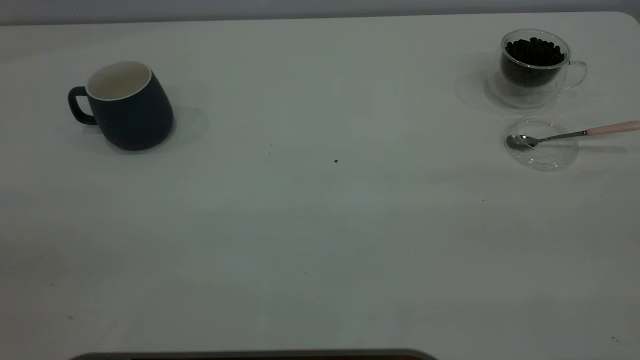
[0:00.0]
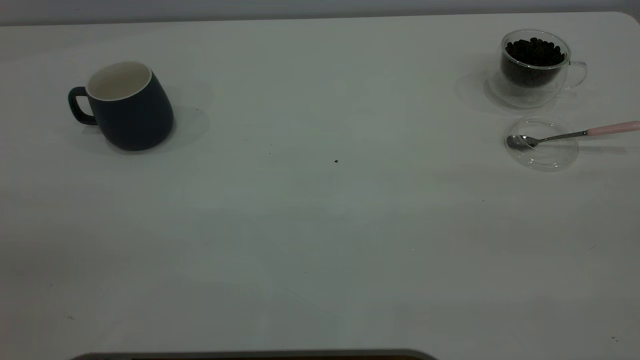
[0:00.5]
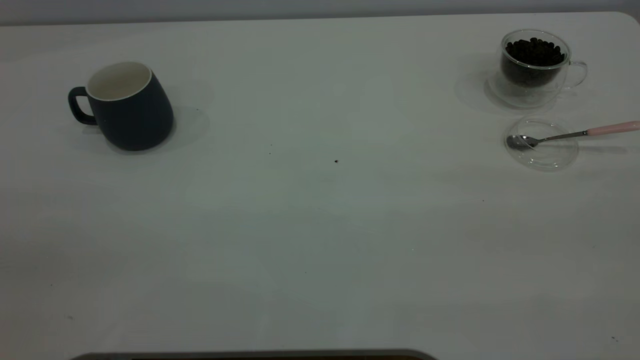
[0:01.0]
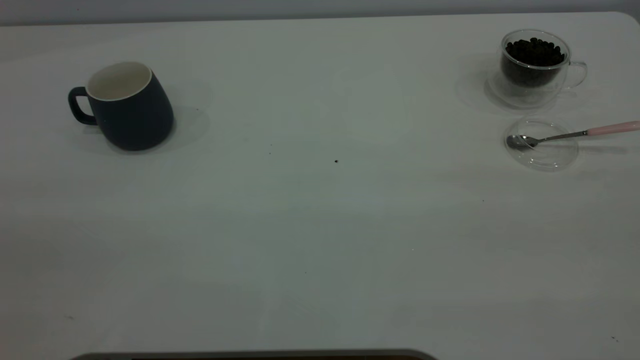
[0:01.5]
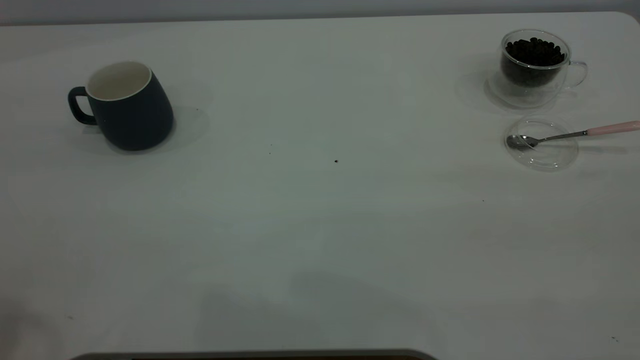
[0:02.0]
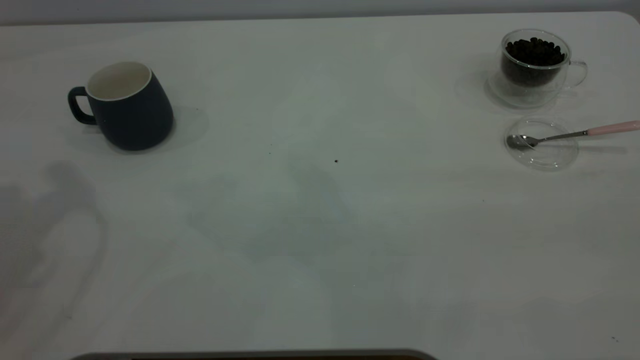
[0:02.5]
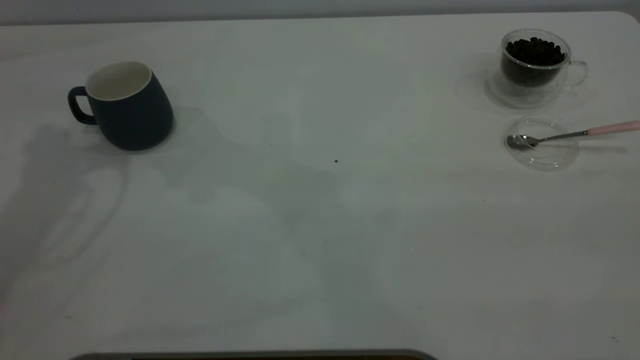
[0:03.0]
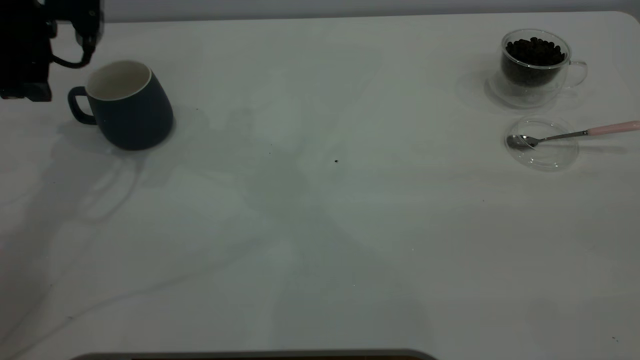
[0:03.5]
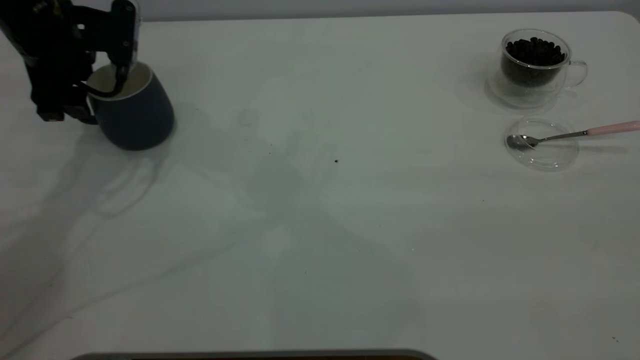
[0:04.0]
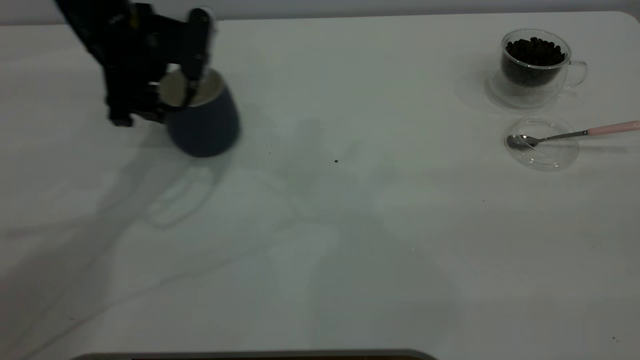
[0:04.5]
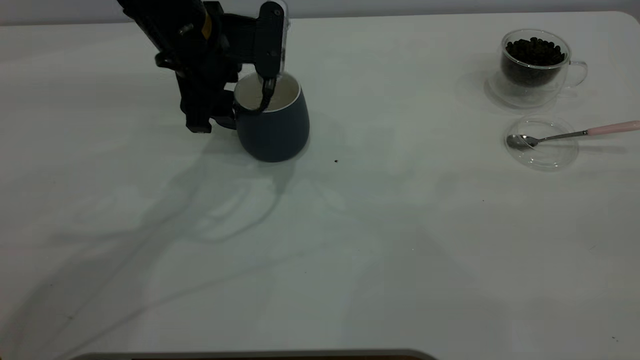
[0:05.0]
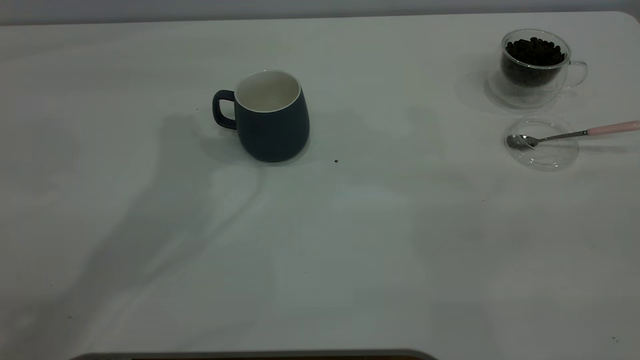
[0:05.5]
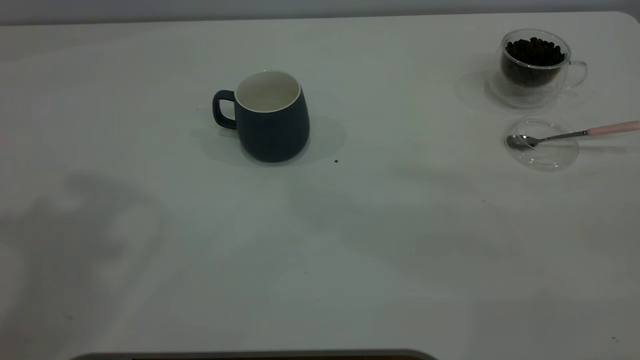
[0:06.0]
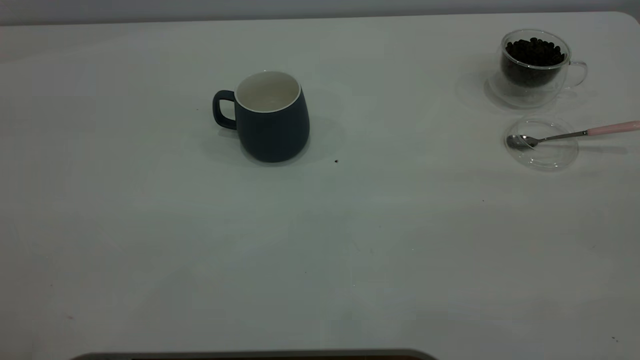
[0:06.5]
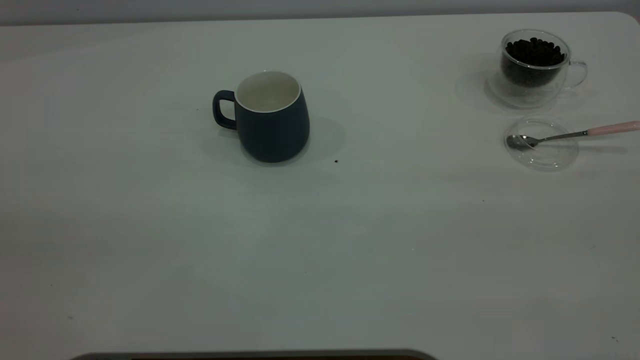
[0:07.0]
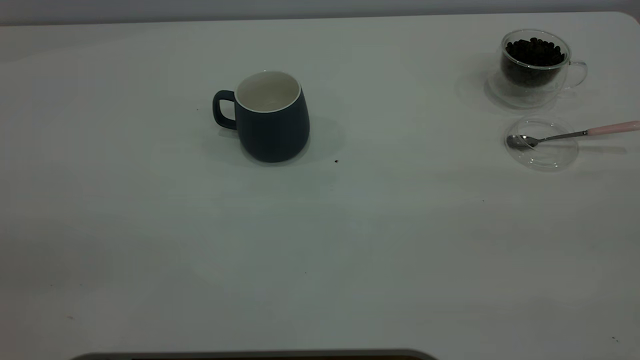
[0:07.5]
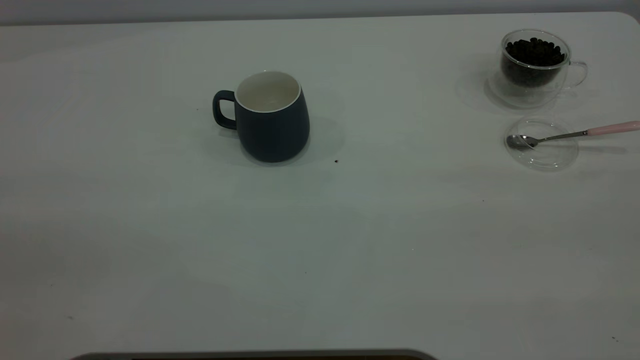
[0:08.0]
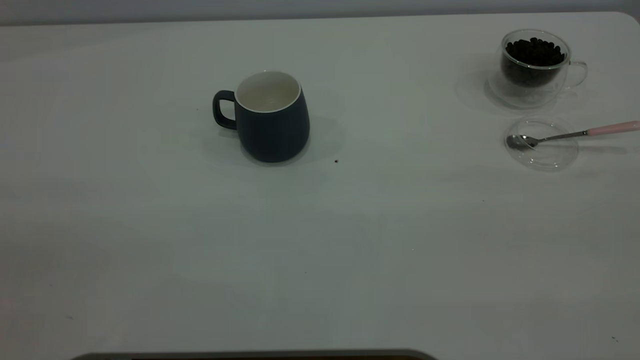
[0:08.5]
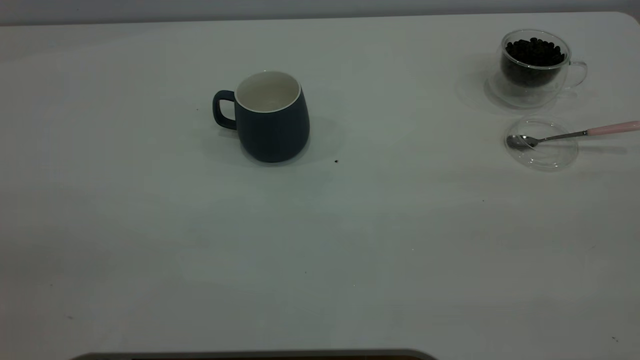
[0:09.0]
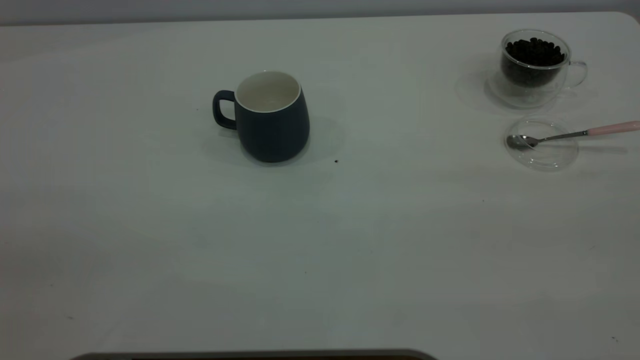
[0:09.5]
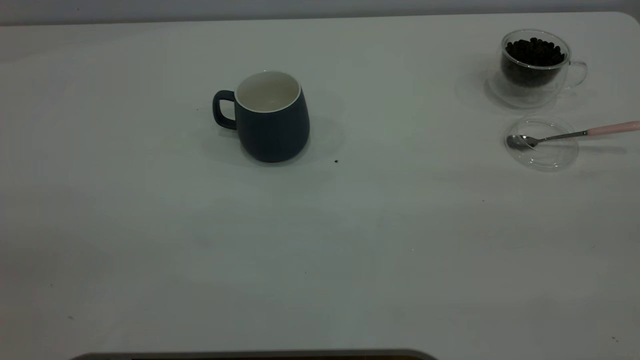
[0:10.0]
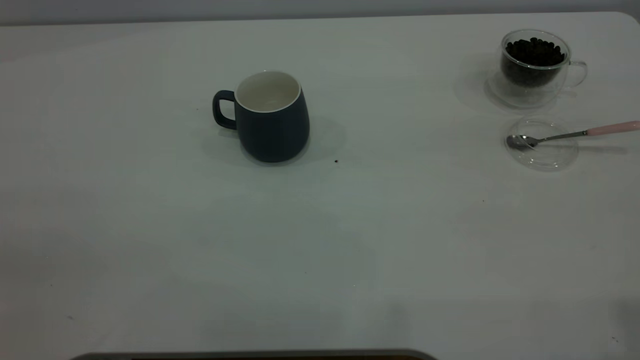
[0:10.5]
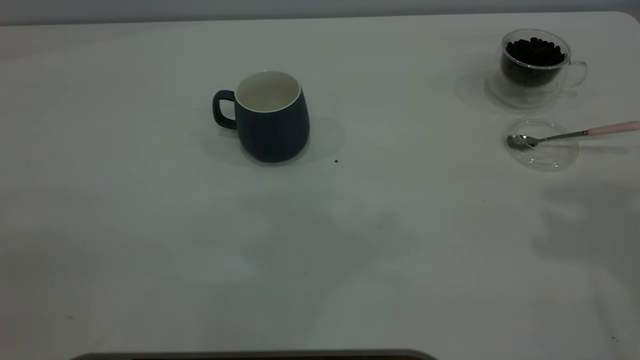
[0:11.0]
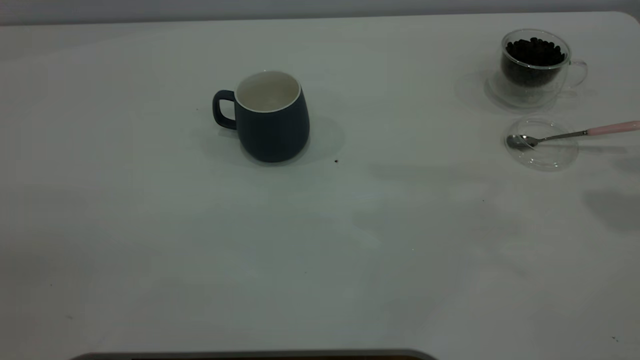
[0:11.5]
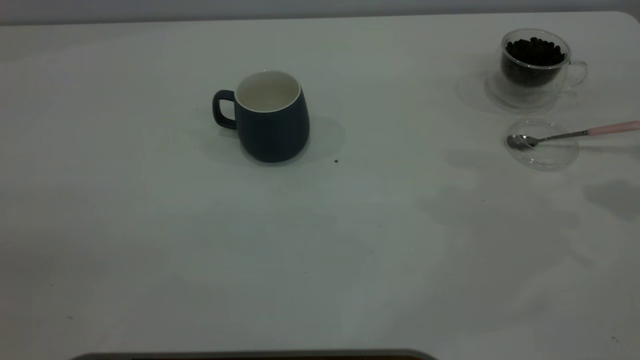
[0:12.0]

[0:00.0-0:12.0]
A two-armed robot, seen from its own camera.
Task of the whole recording: the left gripper place the grey cup in the center of the table, the right gripper take the pink spoon from the cup lid and scoop out the coffee beans from the coffee cup and put them into the grey cup, the right gripper put the spoon back into the cup lid.
Step, 0:00.0 to 0:05.0: Move the cup to the center of view.
0:02.0 to 0:04.0: The left gripper shifts roughly 40 cm forward and downward.
0:04.0 to 0:06.0: The left gripper heads upward and backward, covering roughly 35 cm.

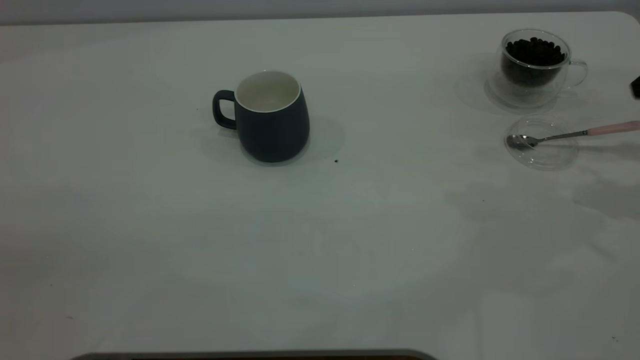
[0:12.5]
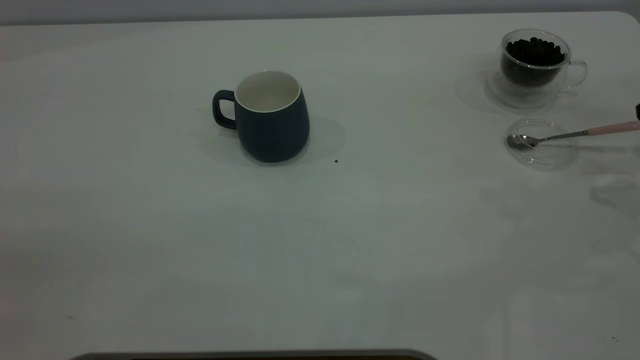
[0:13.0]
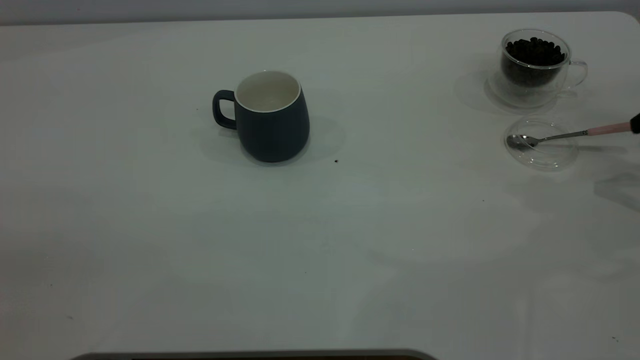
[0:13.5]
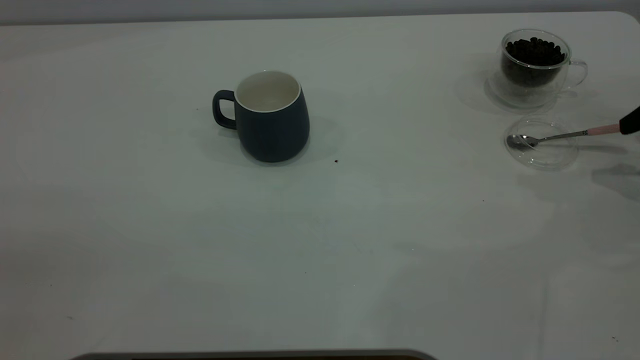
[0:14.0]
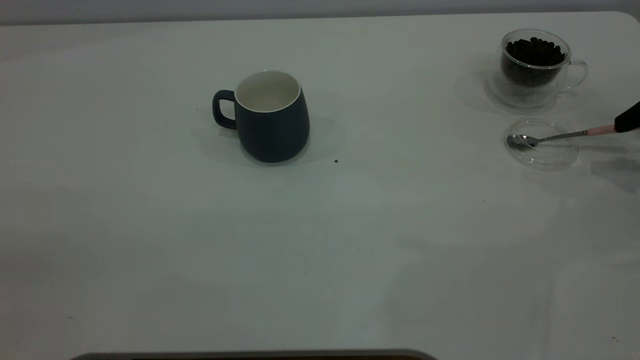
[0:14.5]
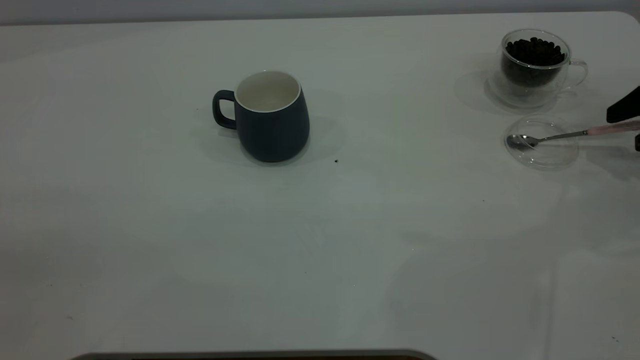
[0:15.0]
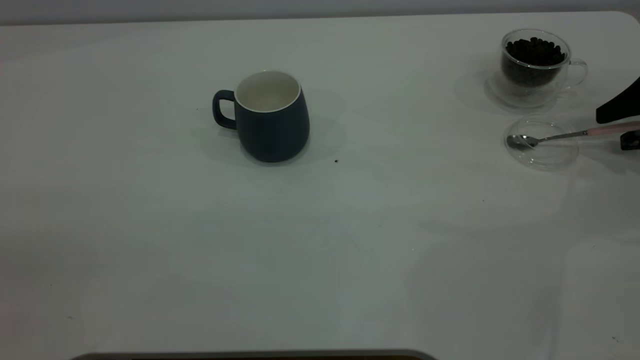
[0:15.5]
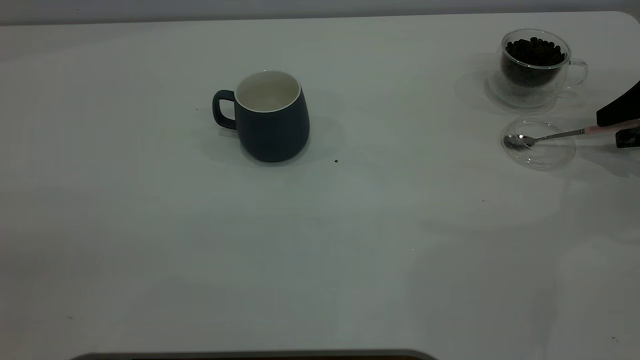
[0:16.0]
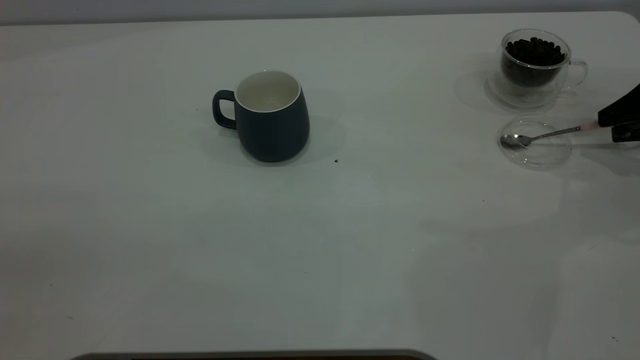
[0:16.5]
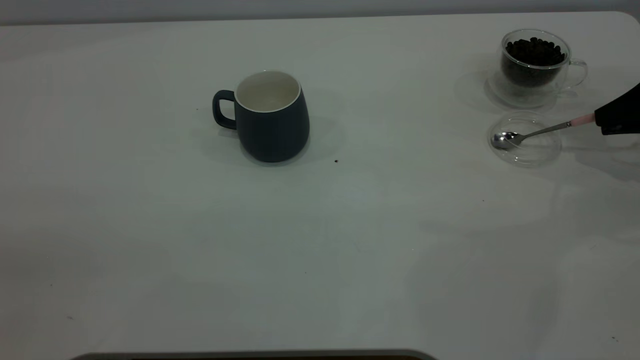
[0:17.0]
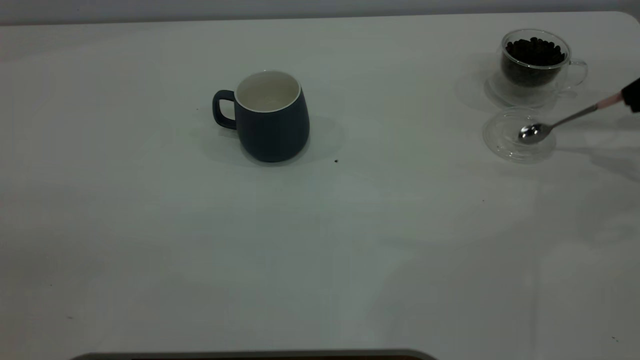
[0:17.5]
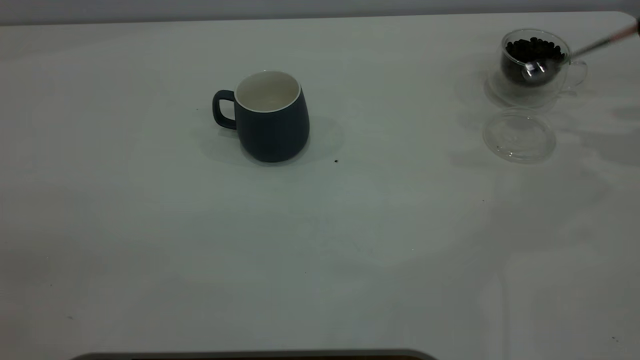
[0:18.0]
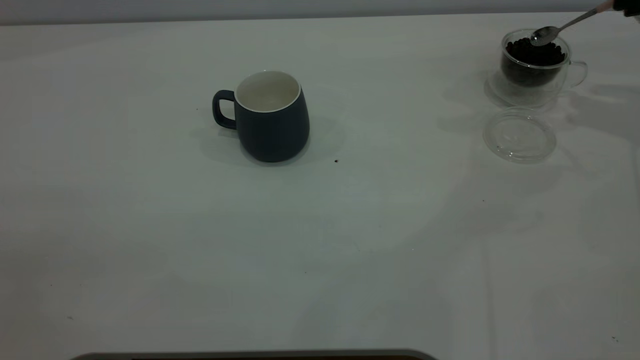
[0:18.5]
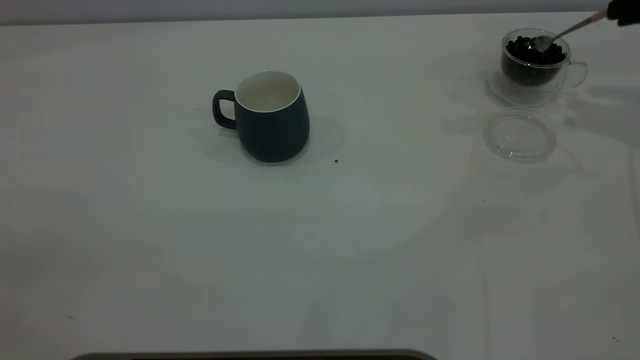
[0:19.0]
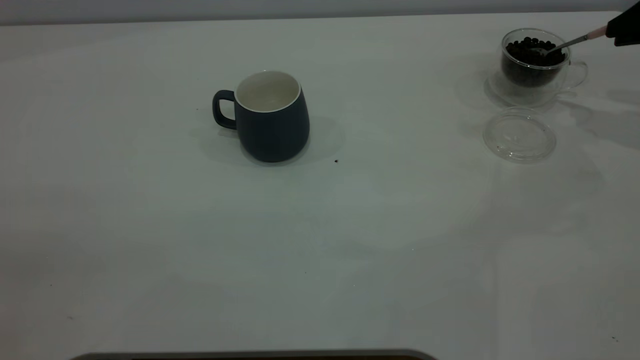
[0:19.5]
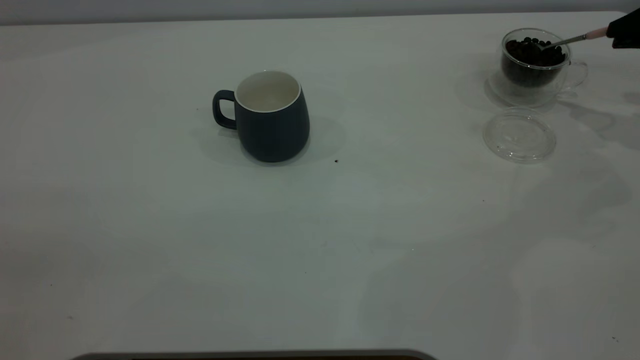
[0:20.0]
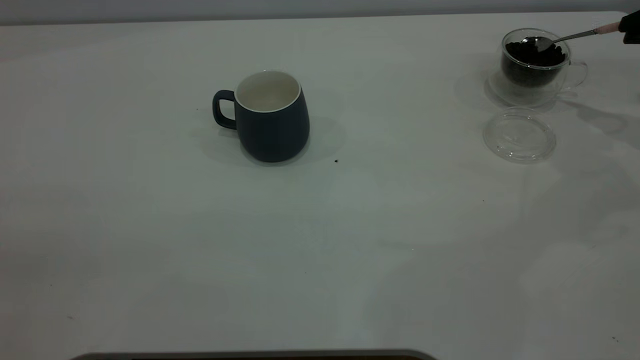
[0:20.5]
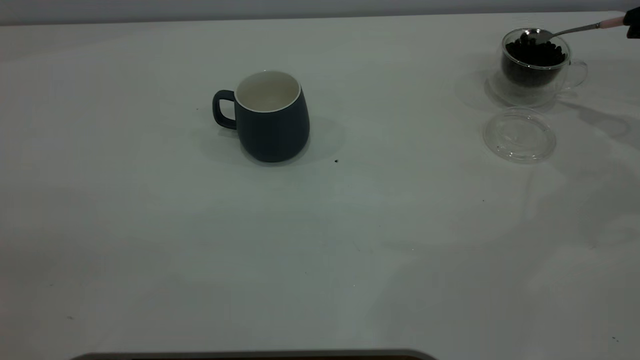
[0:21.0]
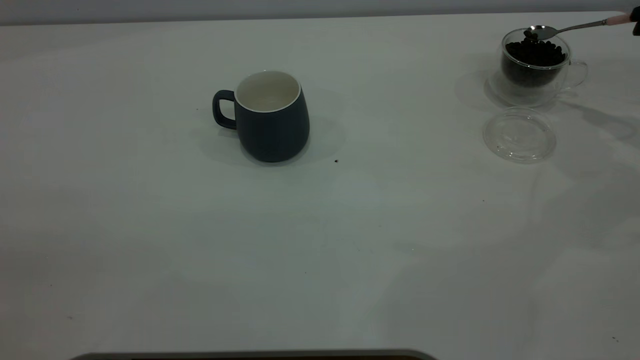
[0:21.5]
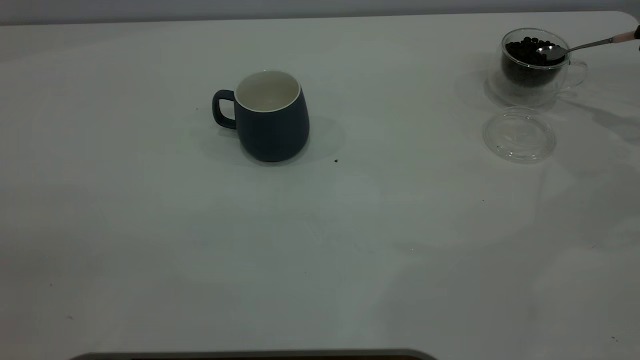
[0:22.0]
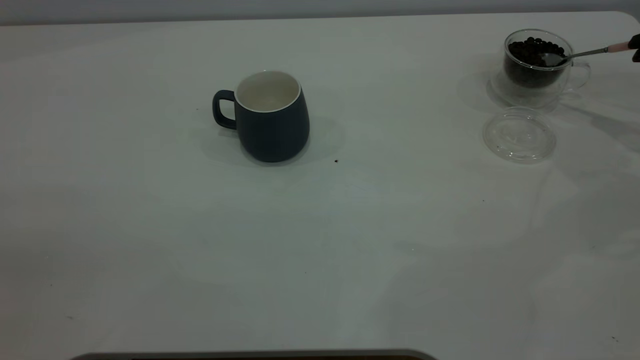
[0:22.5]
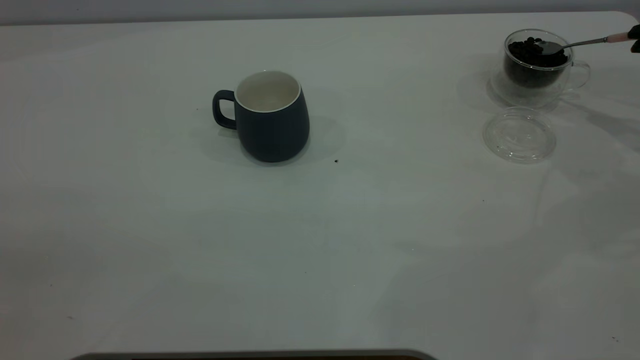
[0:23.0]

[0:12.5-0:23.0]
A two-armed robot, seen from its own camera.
Task of the whole recording: the left gripper place the grey cup in the center of the table, the right gripper take the pink spoon from the cup lid and scoop out the coffee beans from the coffee cup and put them into the grey cup, the right gripper put the spoon back into the cup lid.
Step, 0:12.5 to 0:17.5: Pick up the spoon.
0:12.5 to 0:14.5: The right gripper shifts approximately 10 cm downward.
0:14.5 to 0:16.5: The right gripper closes its fingers.
0:16.5 to 0:19.0: The right gripper shifts roughly 10 cm upward, and closes.
0:19.0 to 0:21.0: The right gripper shifts by approximately 5 cm.
